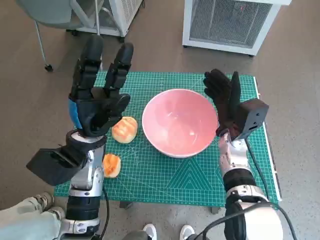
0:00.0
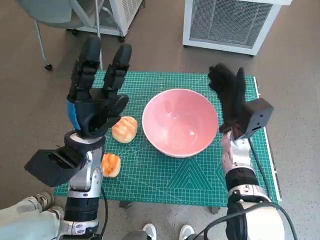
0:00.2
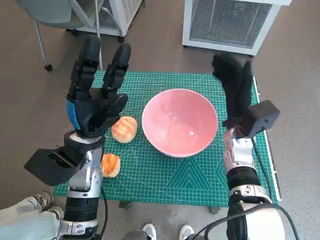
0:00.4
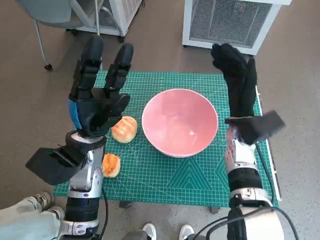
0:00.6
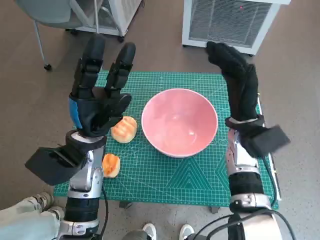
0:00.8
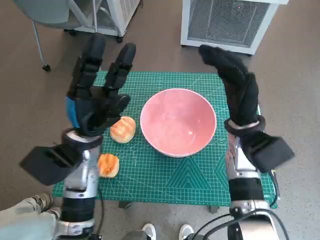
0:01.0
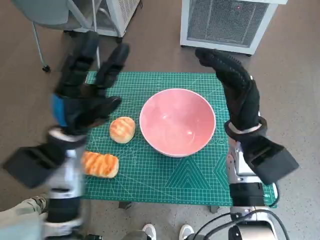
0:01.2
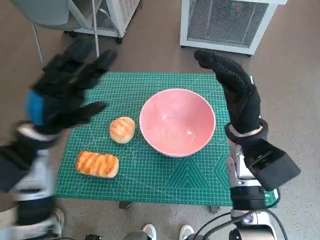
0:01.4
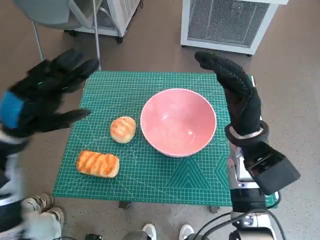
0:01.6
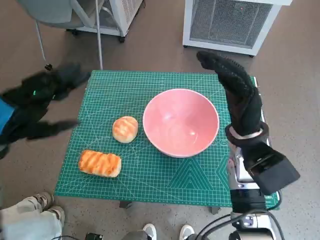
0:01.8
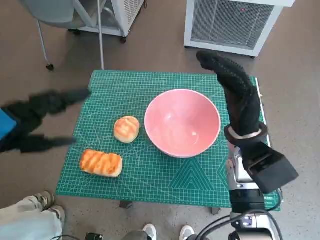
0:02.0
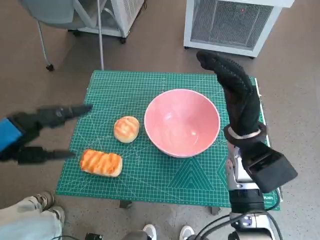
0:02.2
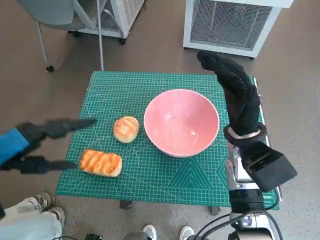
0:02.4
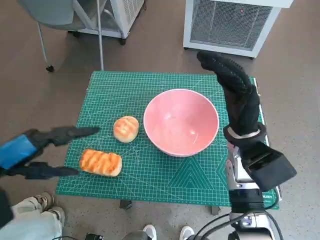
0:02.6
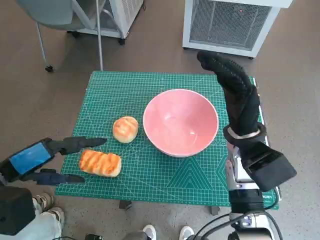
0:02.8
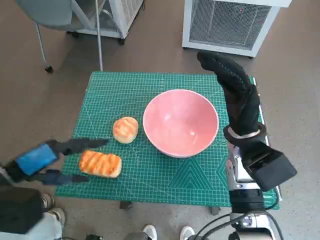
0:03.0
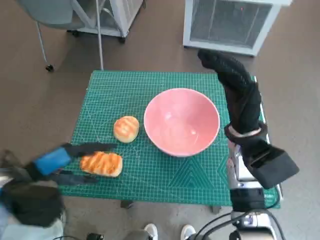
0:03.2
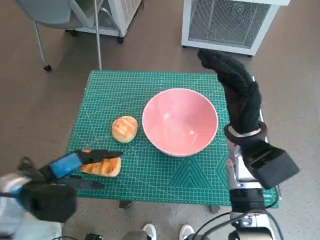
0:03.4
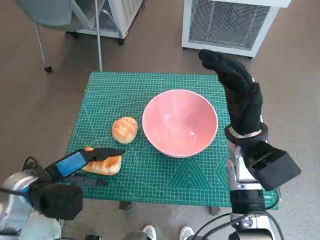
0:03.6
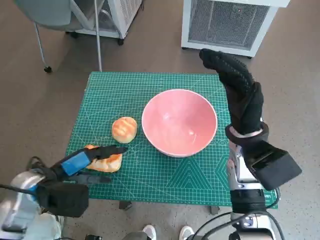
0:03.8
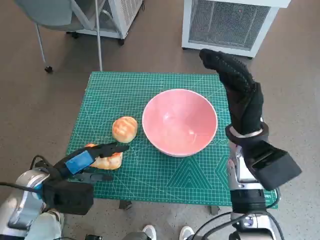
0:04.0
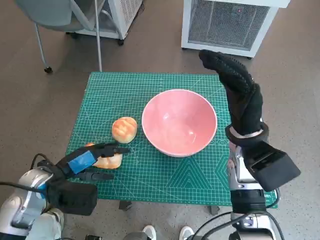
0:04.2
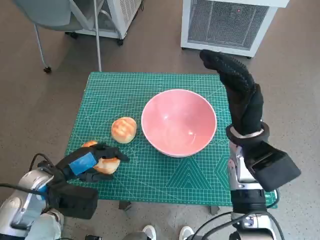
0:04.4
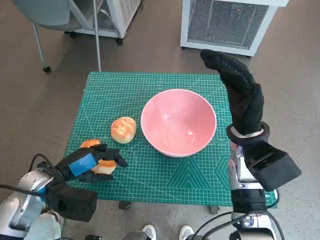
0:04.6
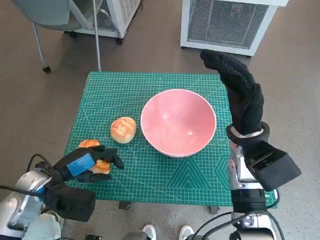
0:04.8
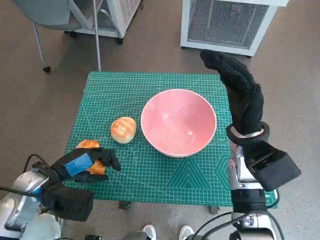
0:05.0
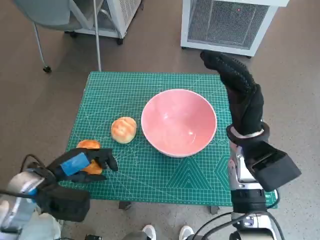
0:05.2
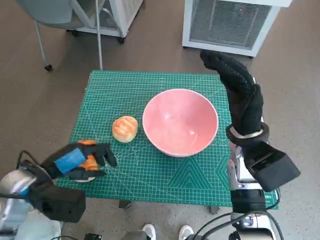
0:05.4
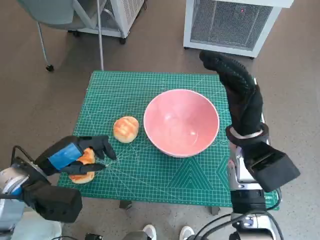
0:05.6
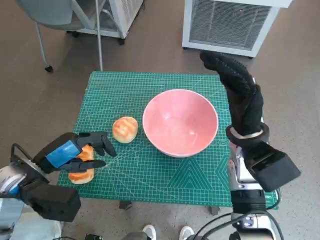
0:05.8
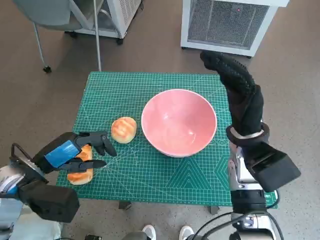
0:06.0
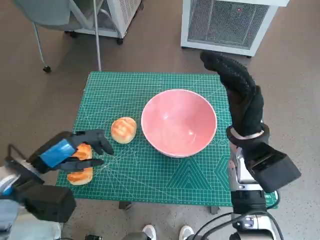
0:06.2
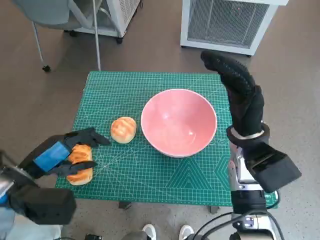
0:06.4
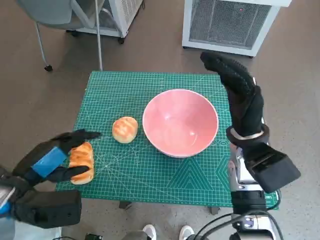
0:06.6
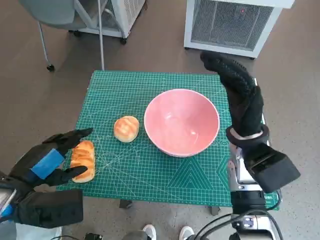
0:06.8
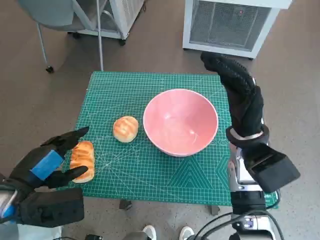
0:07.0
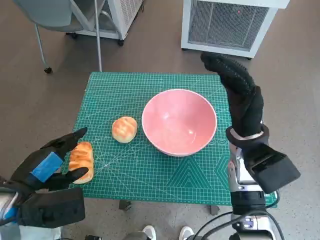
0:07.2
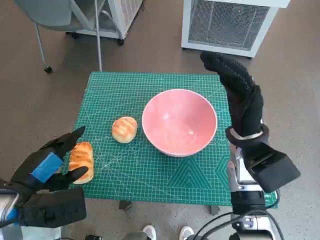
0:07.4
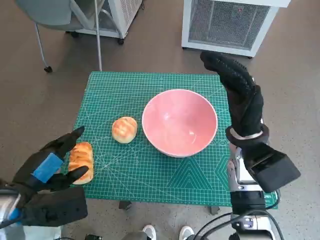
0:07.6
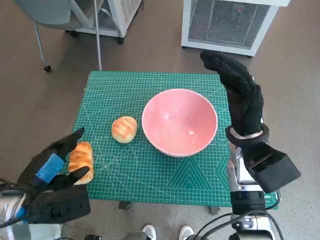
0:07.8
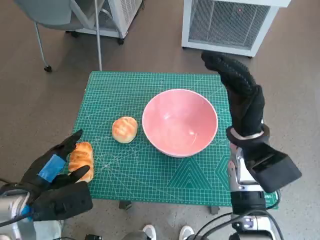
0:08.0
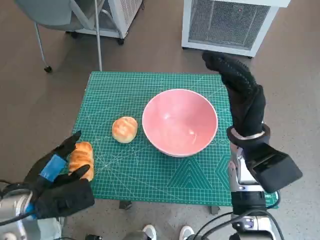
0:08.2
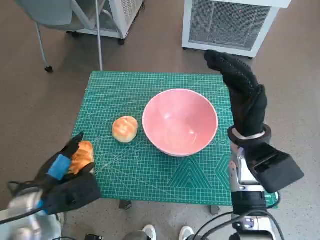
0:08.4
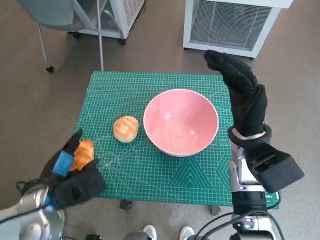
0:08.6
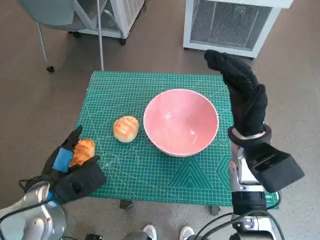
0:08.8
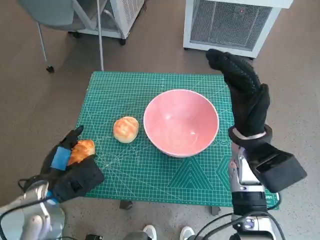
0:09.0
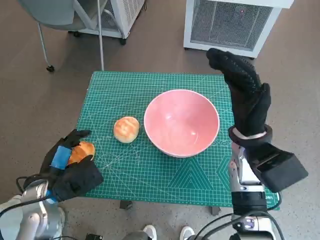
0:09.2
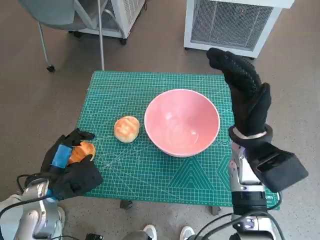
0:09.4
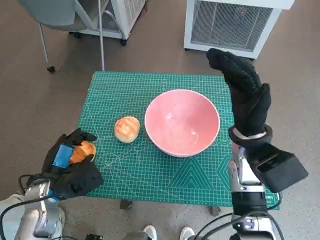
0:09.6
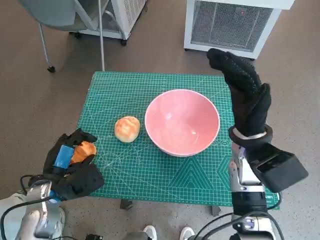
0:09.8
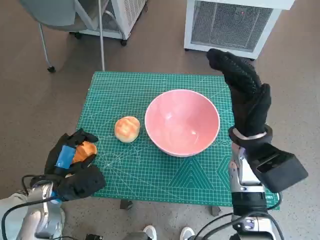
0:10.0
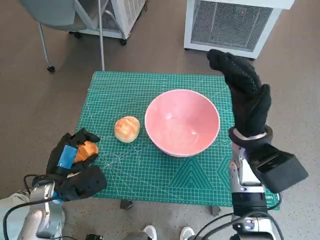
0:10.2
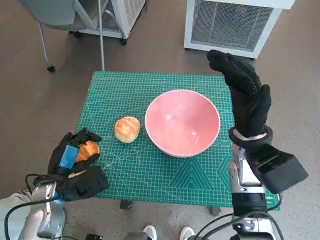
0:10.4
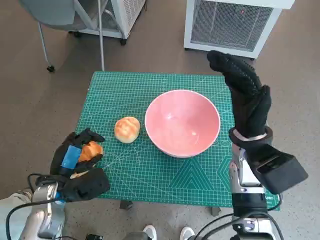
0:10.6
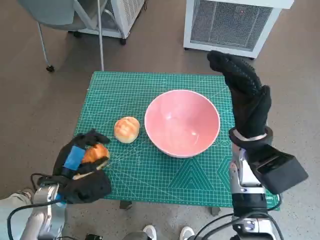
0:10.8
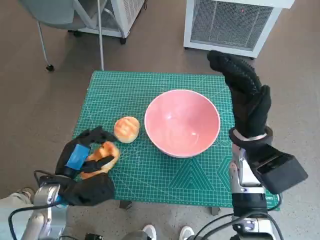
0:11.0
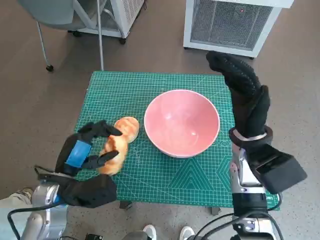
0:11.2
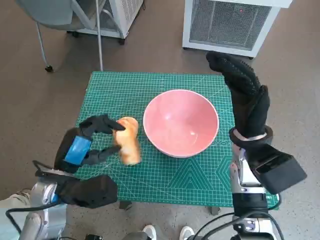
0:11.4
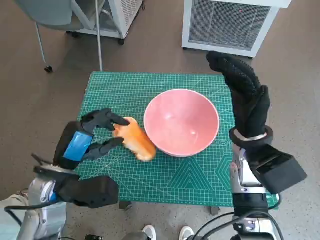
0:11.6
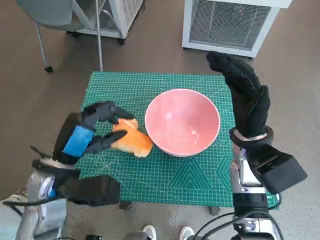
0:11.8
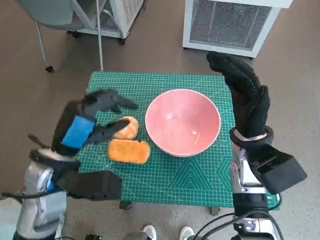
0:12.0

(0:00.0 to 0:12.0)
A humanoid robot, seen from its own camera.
Task of the whole recording: Push the bowl to the center of the table and put the bread into the bowl.
0:00.0 - 0:01.6: The right hand shifts about 10 cm upward, while the left hand shifts some 10 cm to the left and upward.
0:01.6 - 0:03.0: The left hand goes roughly 5 cm backward.
0:03.0 - 0:04.4: The left hand travels downward by roughly 10 cm.
0:04.4 - 0:06.0: The left hand is displaced upward by about 5 cm.
0:07.6 - 0:09.0: The left hand is displaced downward by roughly 5 cm.
0:09.0 - 0:10.4: There are only small adjustments of the hands.
0:10.4 - 0:12.0: The left hand travels upward and to the right by about 15 cm.

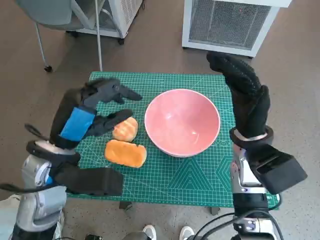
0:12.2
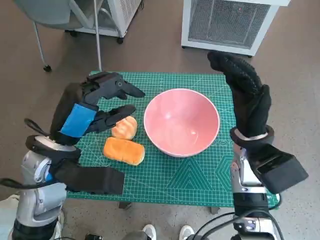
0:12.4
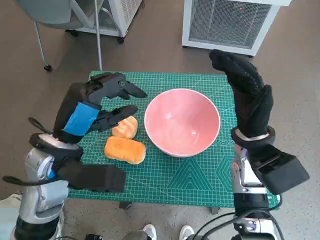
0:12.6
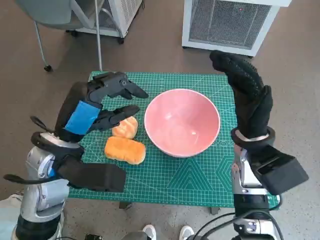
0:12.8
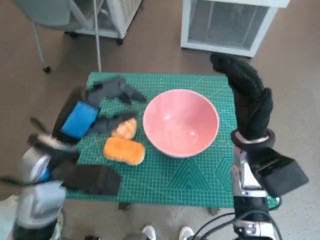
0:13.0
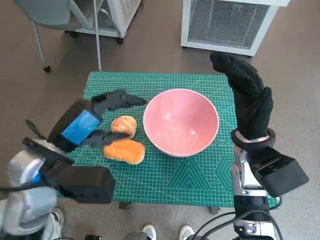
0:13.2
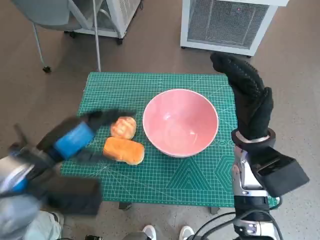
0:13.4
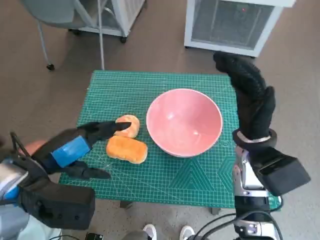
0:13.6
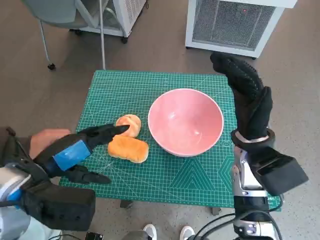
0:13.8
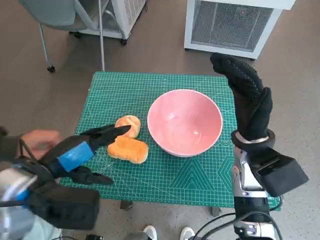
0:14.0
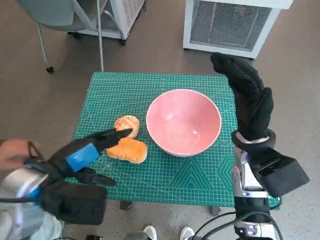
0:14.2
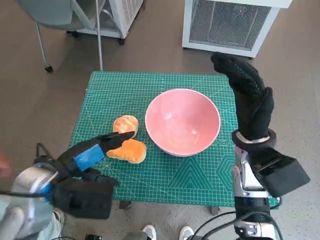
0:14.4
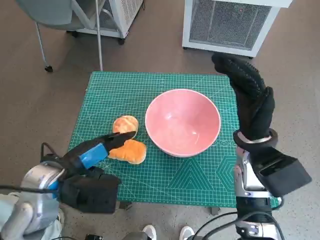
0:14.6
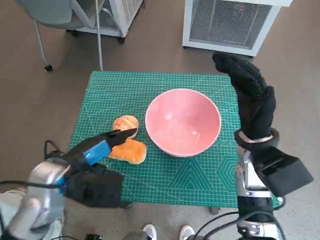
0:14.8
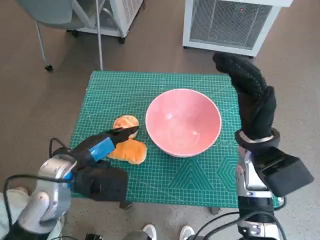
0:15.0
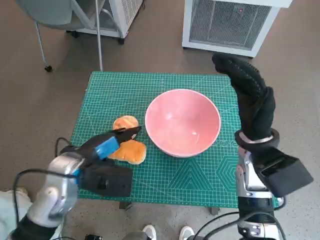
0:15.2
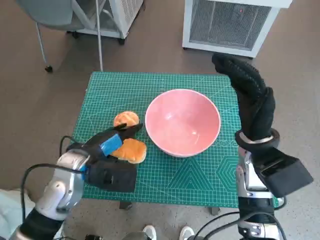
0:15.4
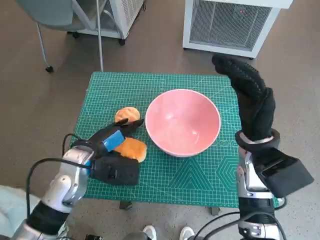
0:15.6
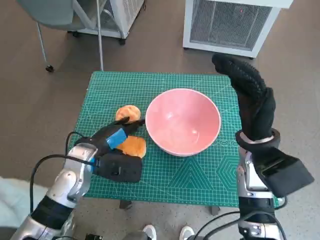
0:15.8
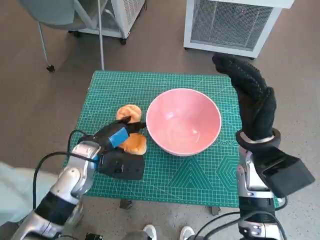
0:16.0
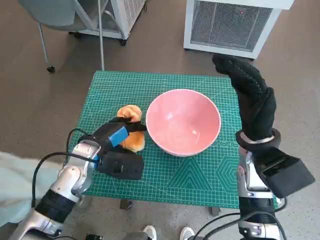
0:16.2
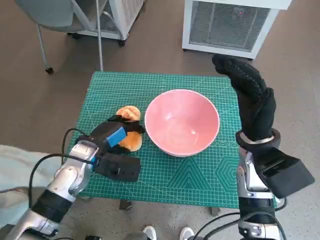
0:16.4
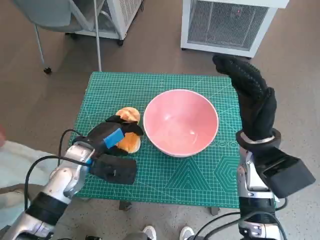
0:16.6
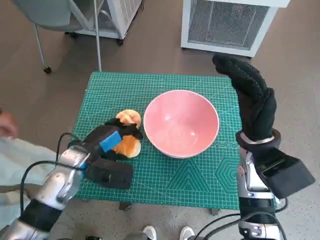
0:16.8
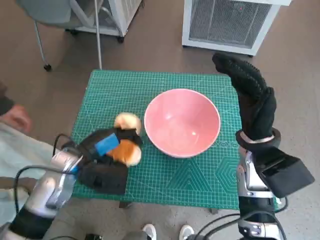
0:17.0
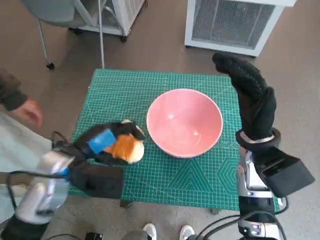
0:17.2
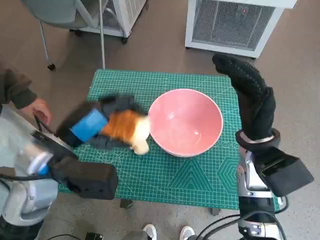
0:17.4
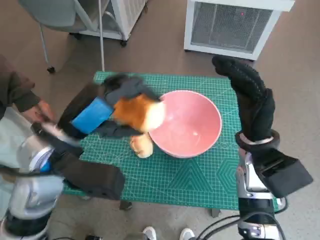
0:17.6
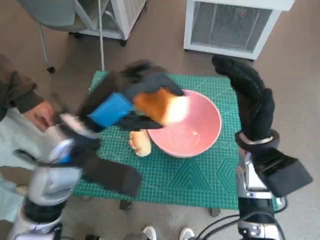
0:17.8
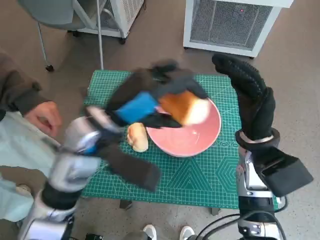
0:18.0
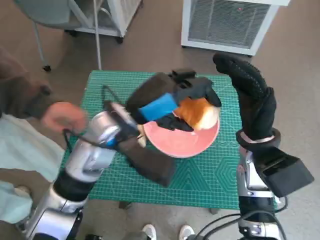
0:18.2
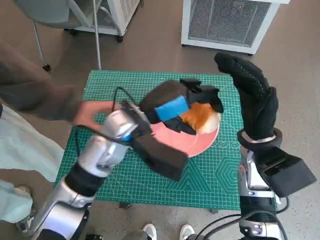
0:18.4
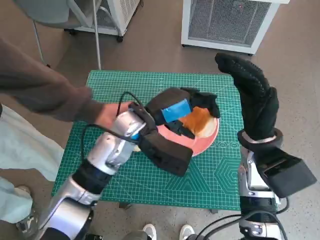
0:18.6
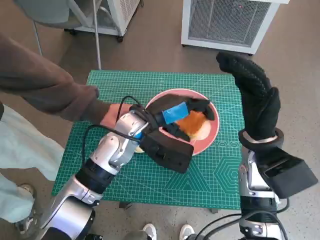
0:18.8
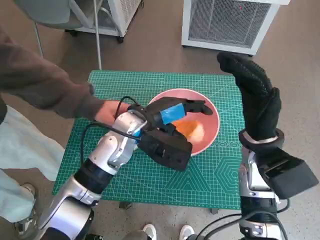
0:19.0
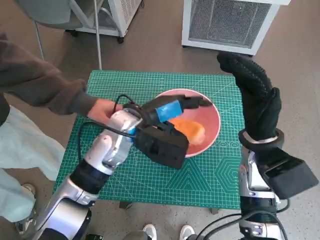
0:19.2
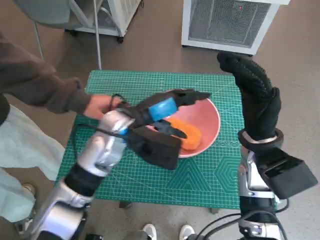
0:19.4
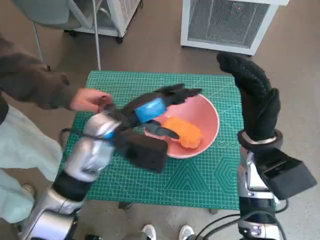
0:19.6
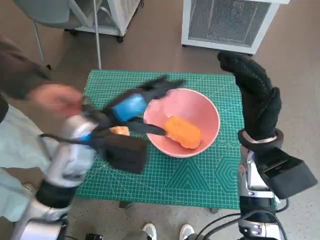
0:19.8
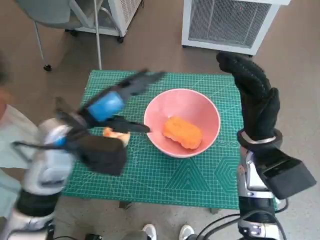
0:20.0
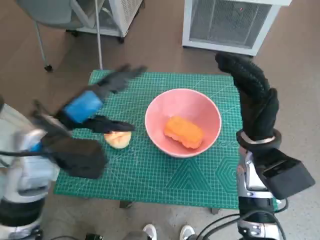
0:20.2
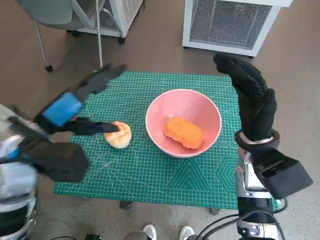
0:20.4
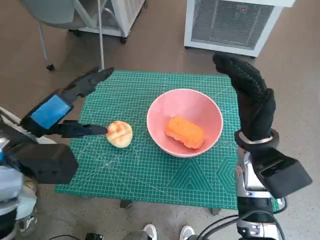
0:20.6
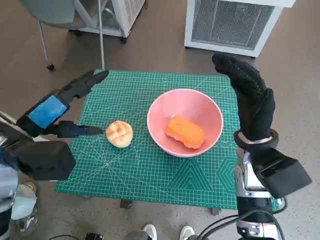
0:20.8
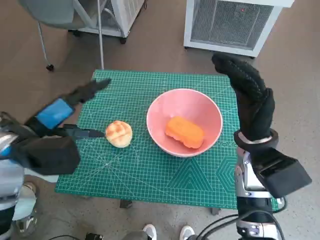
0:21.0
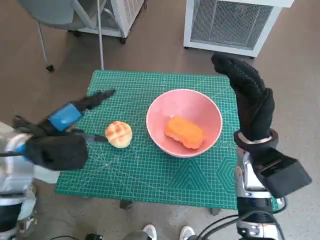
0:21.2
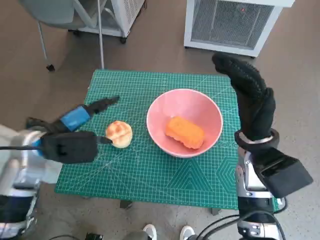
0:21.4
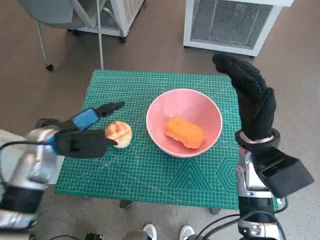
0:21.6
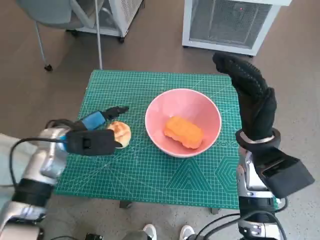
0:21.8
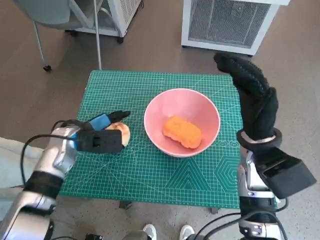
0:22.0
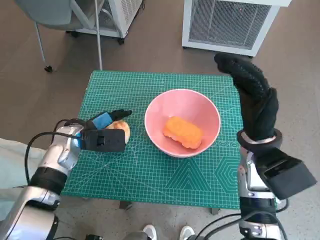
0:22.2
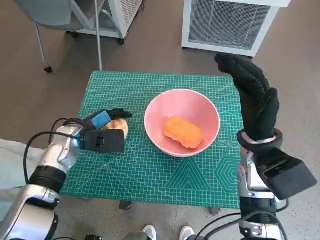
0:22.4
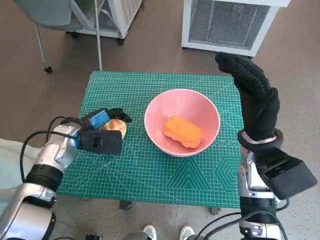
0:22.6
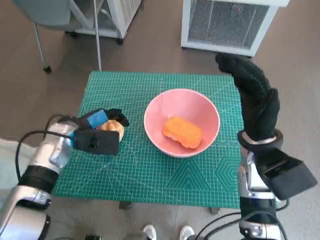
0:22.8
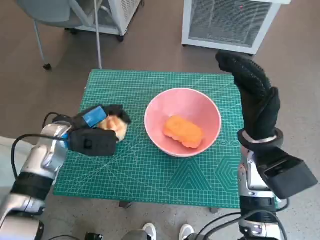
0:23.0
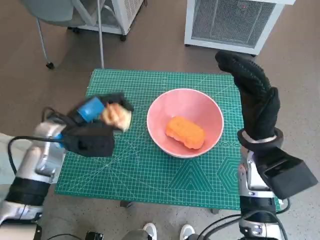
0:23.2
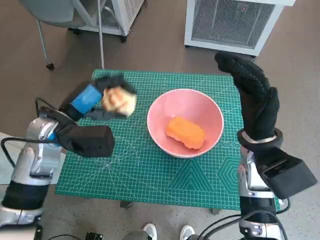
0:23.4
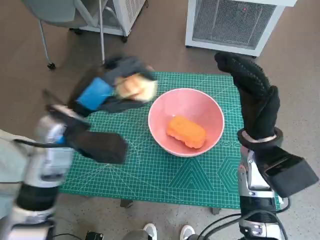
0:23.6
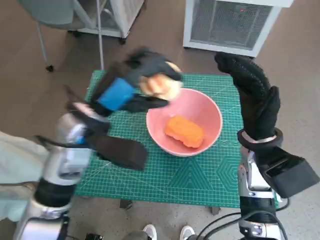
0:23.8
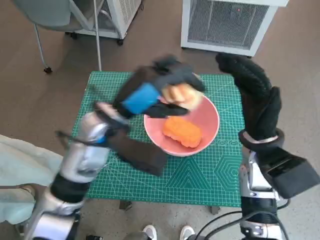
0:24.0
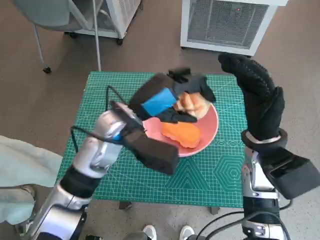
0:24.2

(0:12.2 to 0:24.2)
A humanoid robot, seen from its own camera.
Task of the whole recording: Push the bowl to the center of the table and put the bread into the bowl.
Step, 0:12.2 - 0:16.4: Grasp the long bread with left hand.
Step, 0:16.6 - 0:19.4: Place the long bread in pink bowl with left hand.
Step, 0:19.6 - 0:22.6: Grasp the round bread with left hand.
0:13.8 - 0:15.2: The left hand shifts some 10 cm downward and forward.
0:15.2 - 0:16.6: The left hand ends up some 5 cm from where it was.
0:16.6 - 0:18.2: The left hand heads upward and to the right, covering roughly 15 cm.
0:19.8 - 0:21.2: The left hand heads to the left, covering about 10 cm.
0:21.2 - 0:22.6: The left hand travels downward and forward by about 10 cm.
0:22.6 - 0:24.2: The left hand heads to the right and upward, covering some 15 cm.
